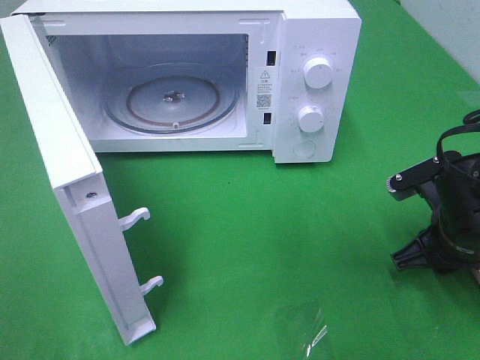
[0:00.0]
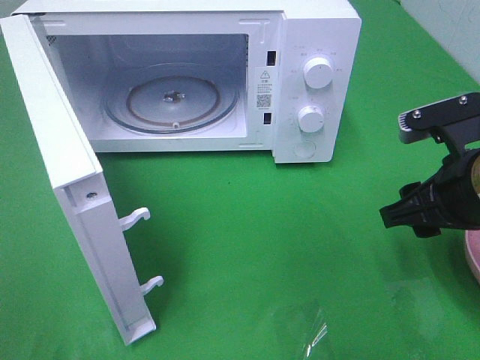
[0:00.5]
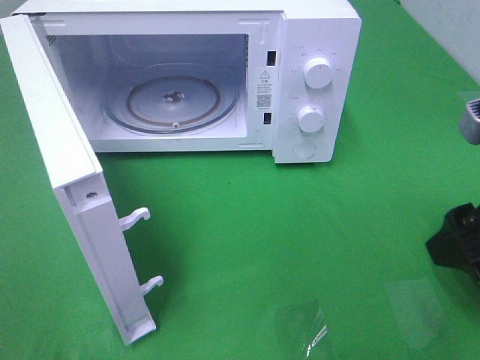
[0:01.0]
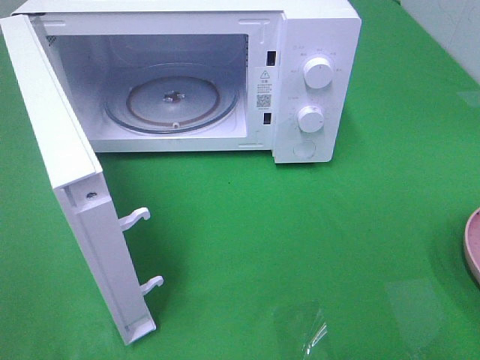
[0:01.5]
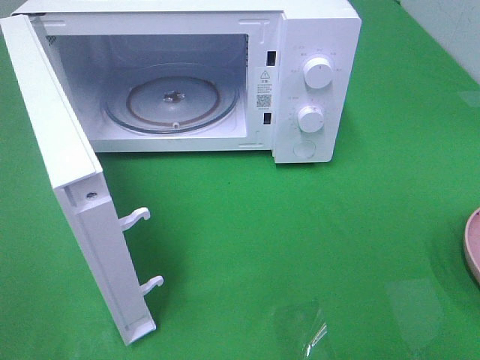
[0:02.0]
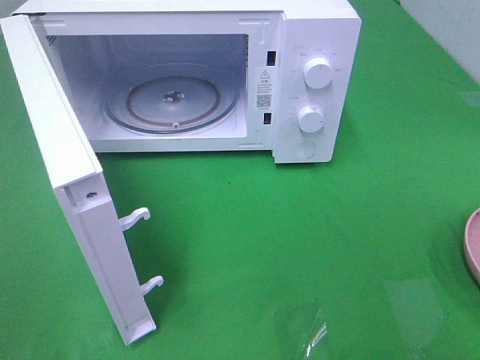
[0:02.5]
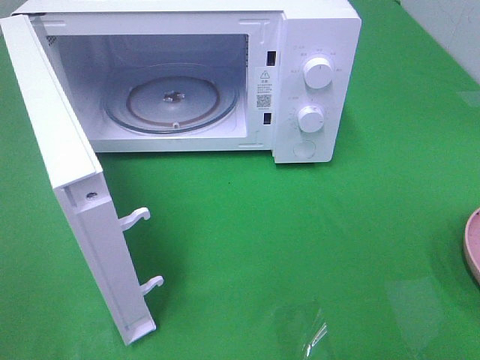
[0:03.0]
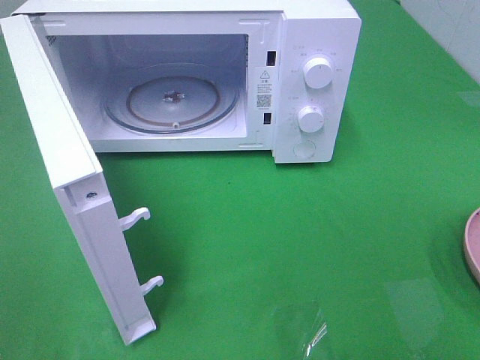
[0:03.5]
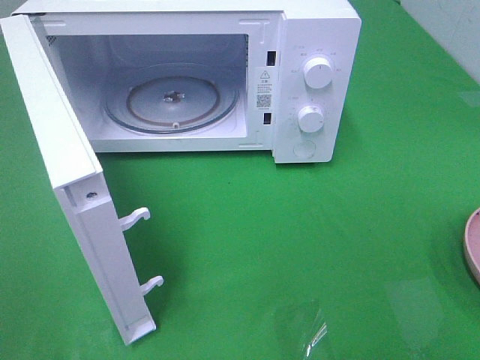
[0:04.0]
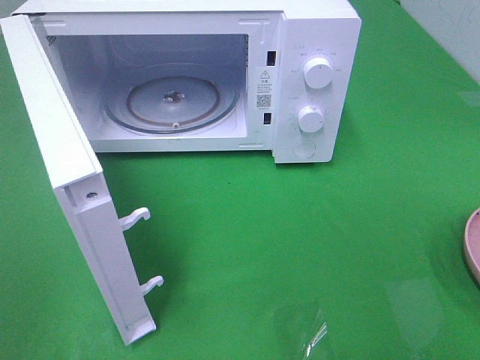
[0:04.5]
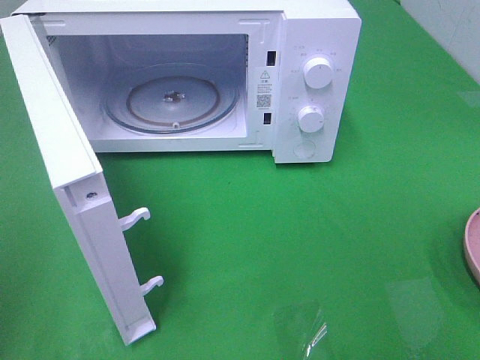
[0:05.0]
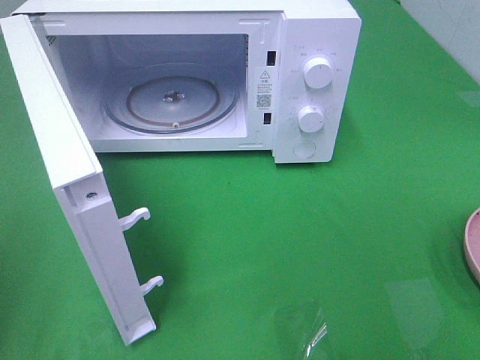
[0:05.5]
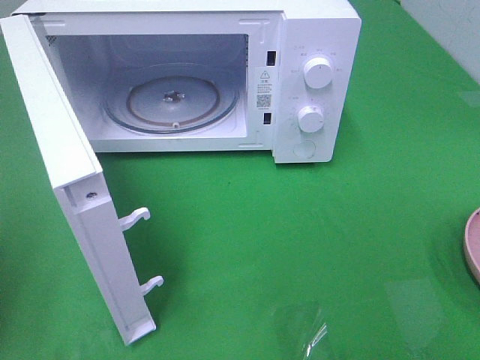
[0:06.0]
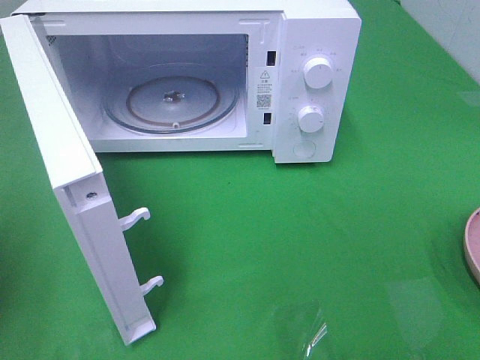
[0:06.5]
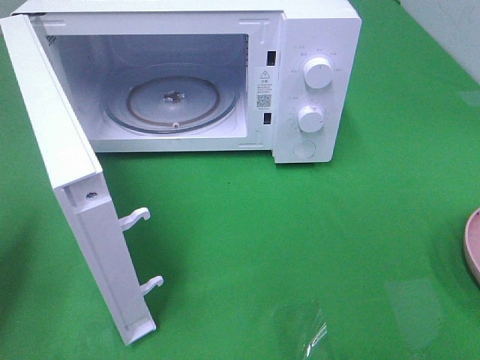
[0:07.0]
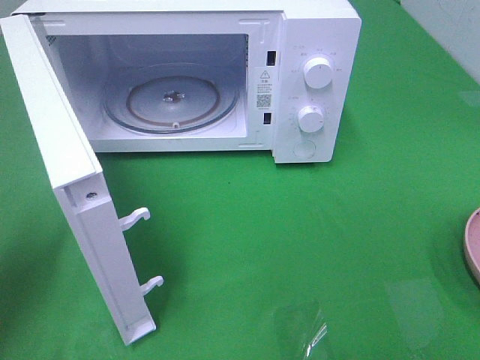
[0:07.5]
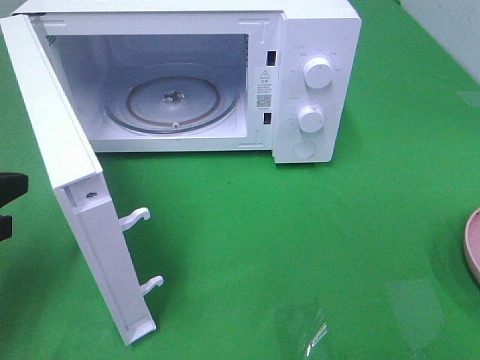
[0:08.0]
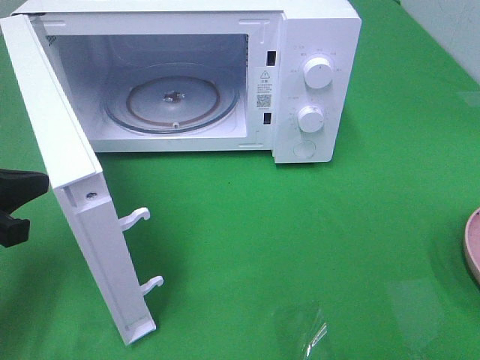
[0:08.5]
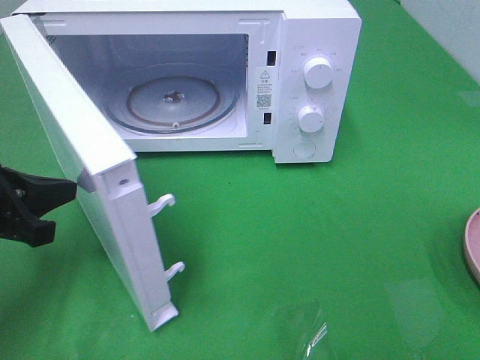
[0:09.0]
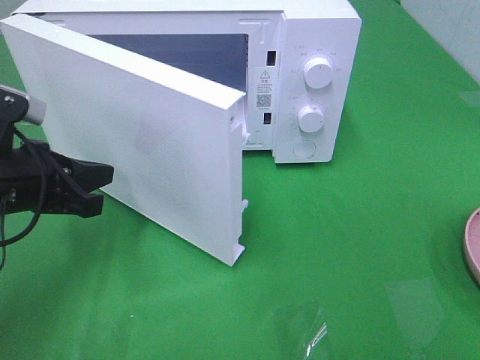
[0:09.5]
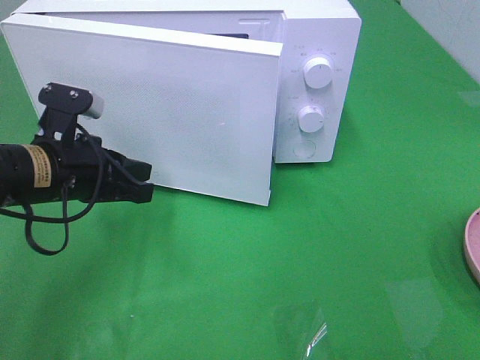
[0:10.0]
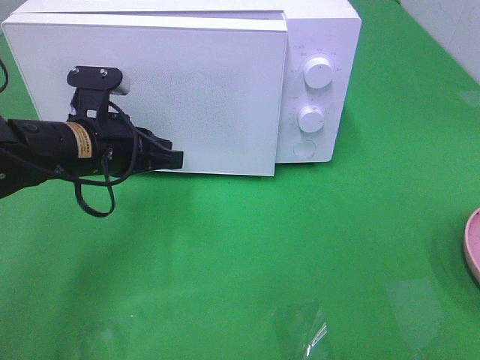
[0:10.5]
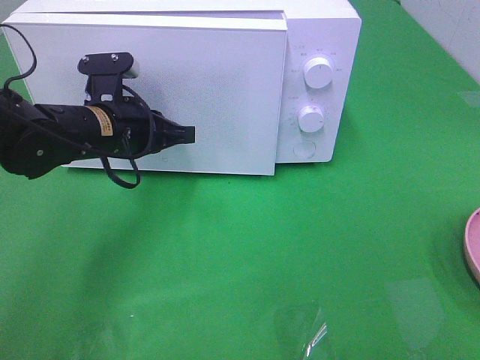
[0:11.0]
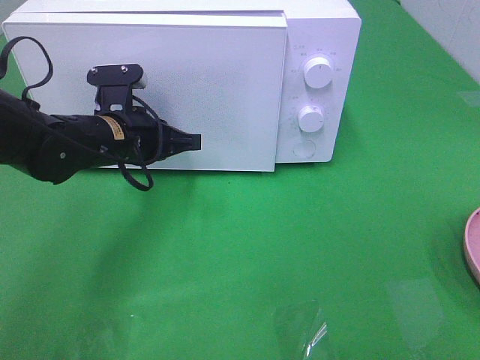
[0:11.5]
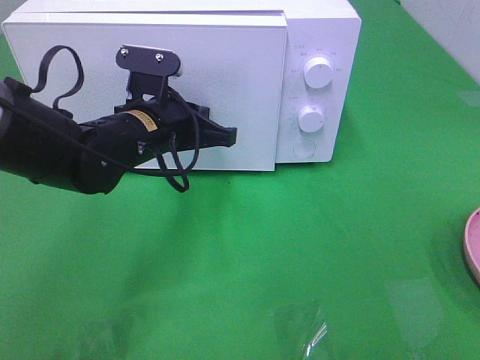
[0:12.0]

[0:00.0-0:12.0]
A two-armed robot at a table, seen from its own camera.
Task of the whole recording: Heat the burger.
0:00.0 to 0:02.0: The right gripper heads backward and upward, covering roughly 30 cm.
0:06.0 to 0:08.0: The left gripper travels downward and forward by approximately 10 cm.
0:08.0 to 0:10.0: The left gripper travels to the right and forward by roughly 15 cm.
0:10.0 to 0:12.0: The left gripper shifts approximately 10 cm to the right and forward.

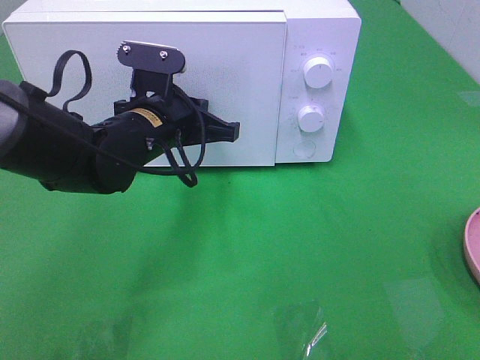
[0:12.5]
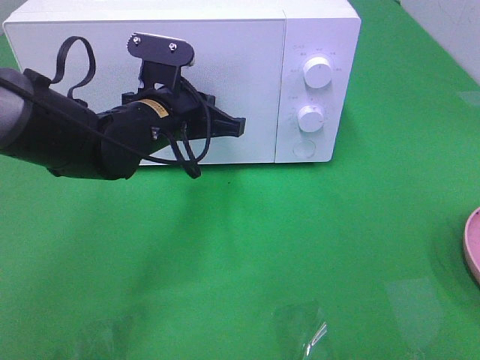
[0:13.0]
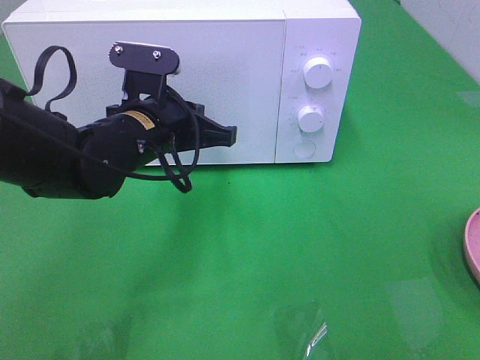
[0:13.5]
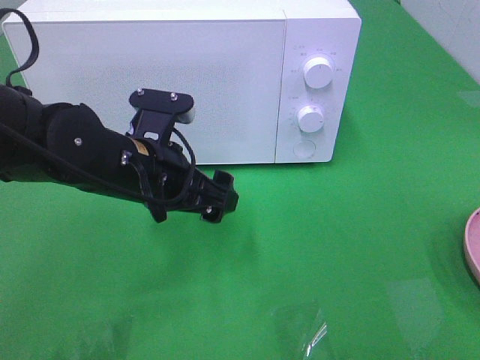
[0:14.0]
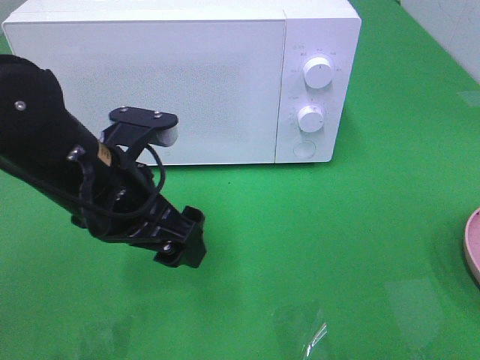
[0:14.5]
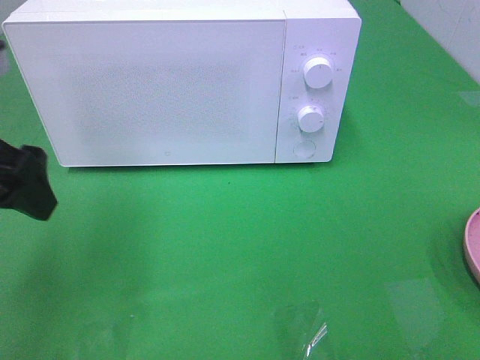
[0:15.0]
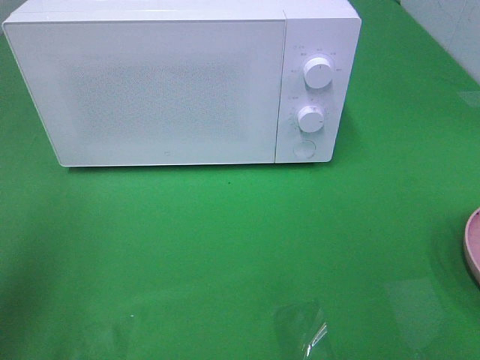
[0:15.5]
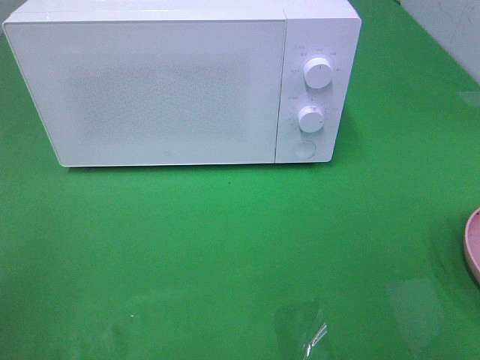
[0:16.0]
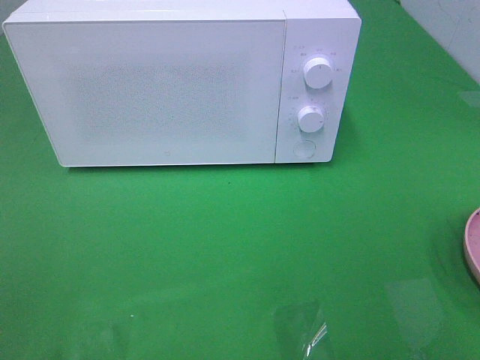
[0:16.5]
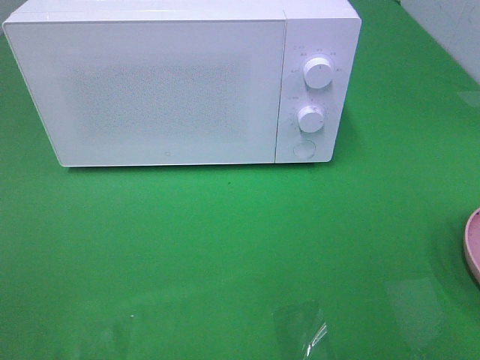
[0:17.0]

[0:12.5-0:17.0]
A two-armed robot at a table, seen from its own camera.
Task of the whole recording: Heat the burger.
0:12.5 to 0:14.5: The left gripper shifts approximately 10 cm backward, and opens.
0:14.5 to 0:17.0: The left gripper shifts roughly 30 cm backward, to the left and upward.

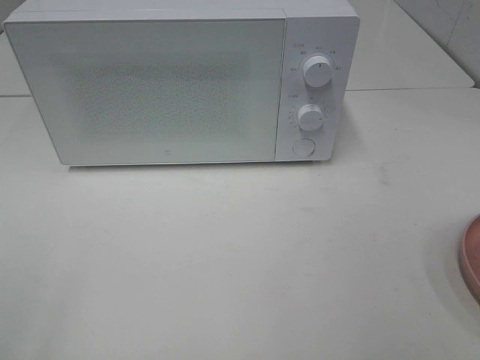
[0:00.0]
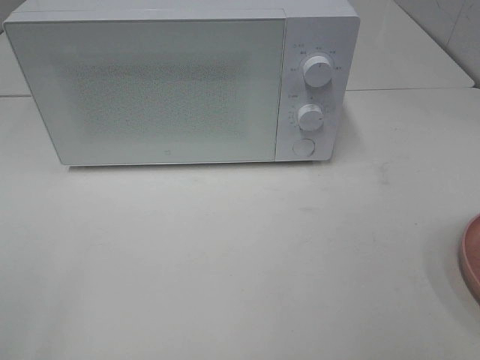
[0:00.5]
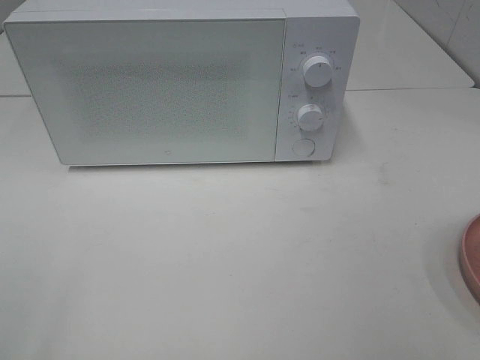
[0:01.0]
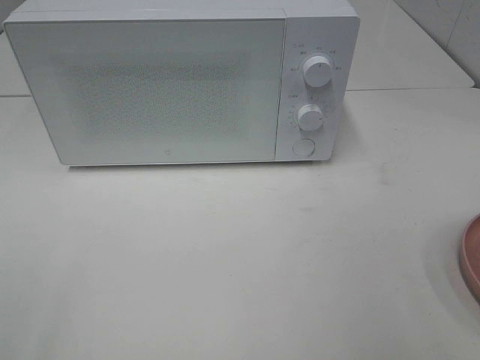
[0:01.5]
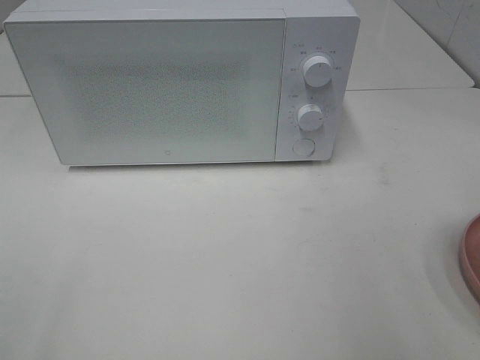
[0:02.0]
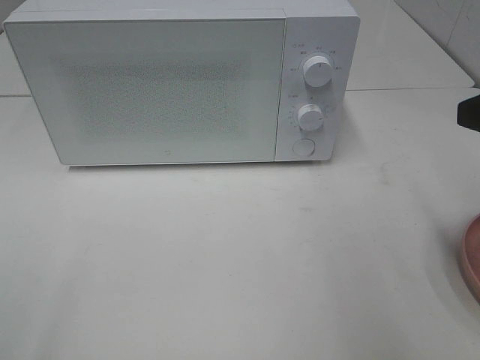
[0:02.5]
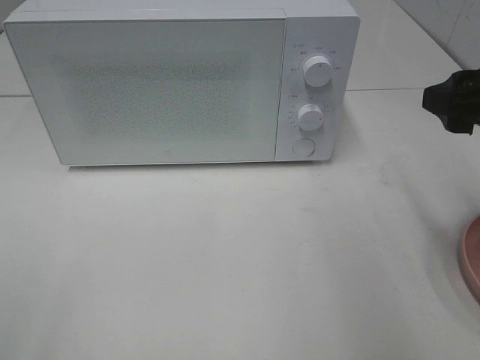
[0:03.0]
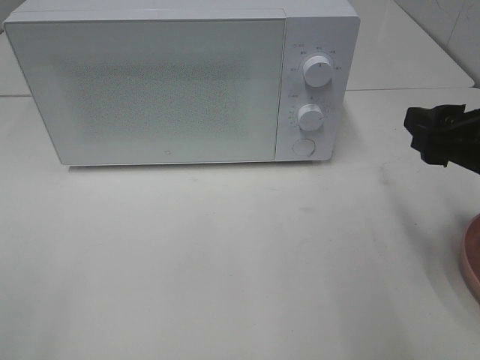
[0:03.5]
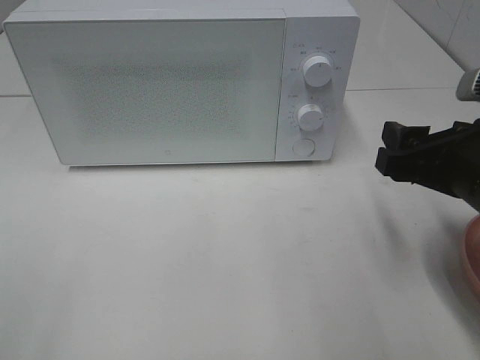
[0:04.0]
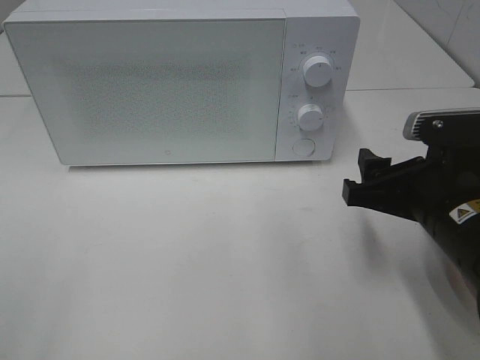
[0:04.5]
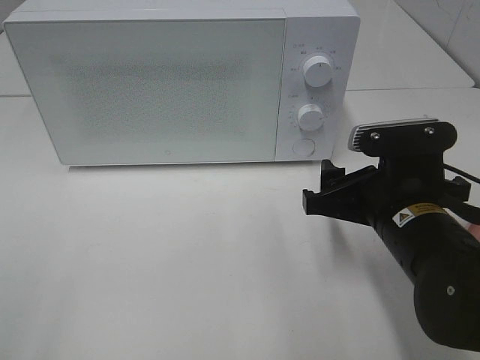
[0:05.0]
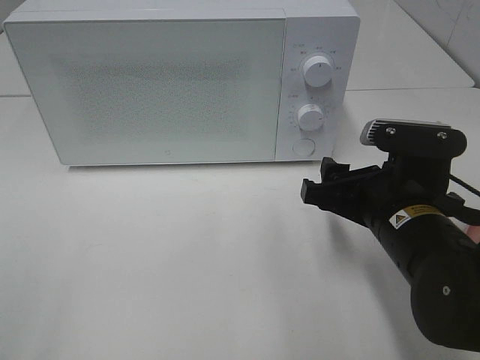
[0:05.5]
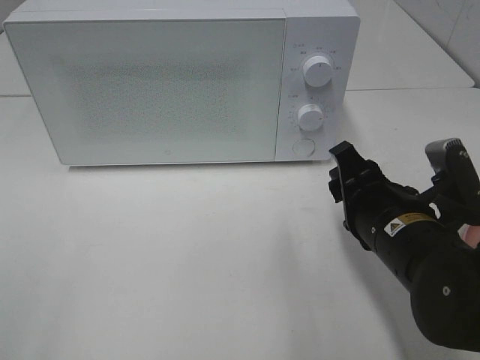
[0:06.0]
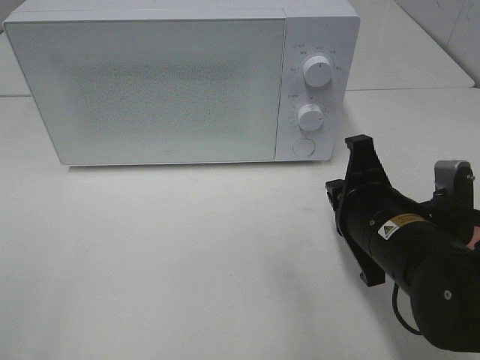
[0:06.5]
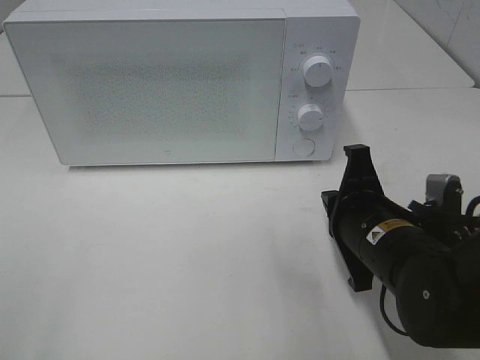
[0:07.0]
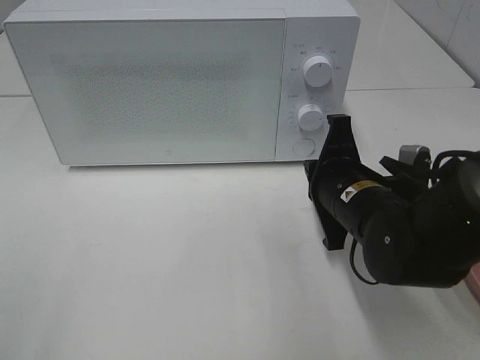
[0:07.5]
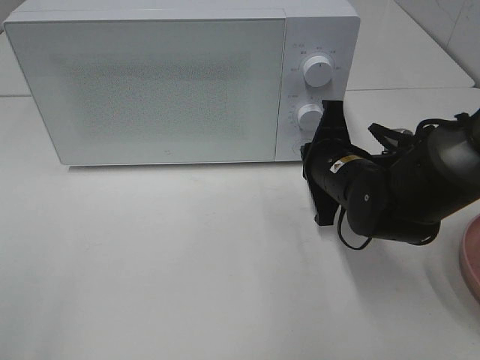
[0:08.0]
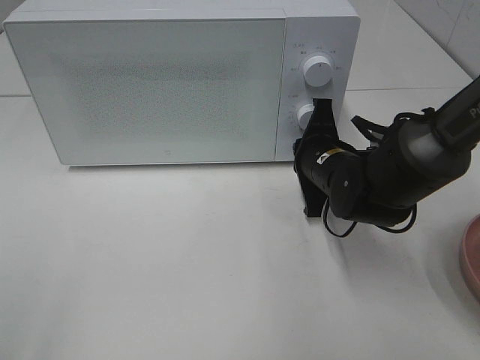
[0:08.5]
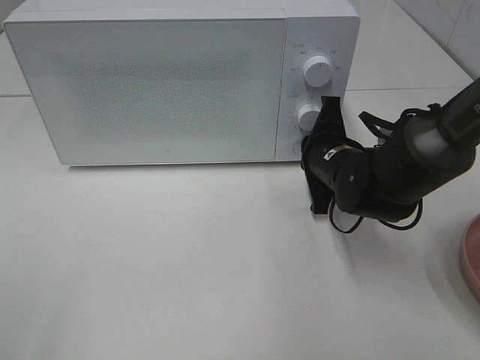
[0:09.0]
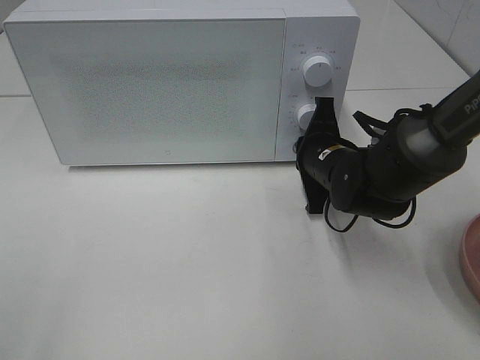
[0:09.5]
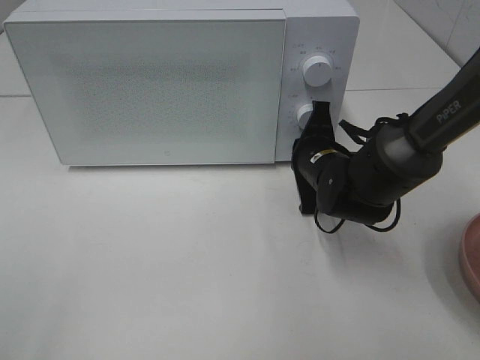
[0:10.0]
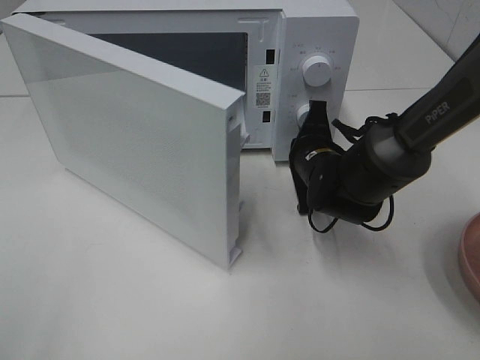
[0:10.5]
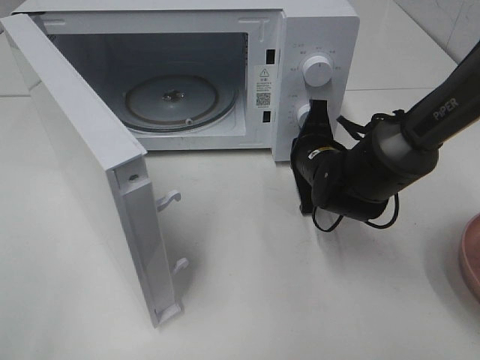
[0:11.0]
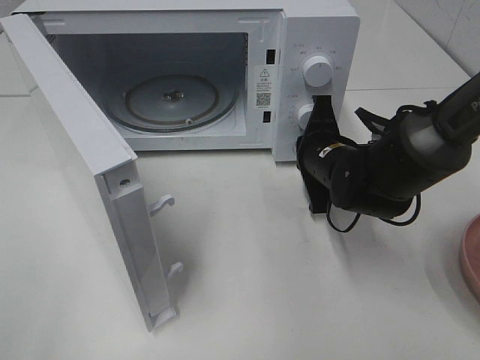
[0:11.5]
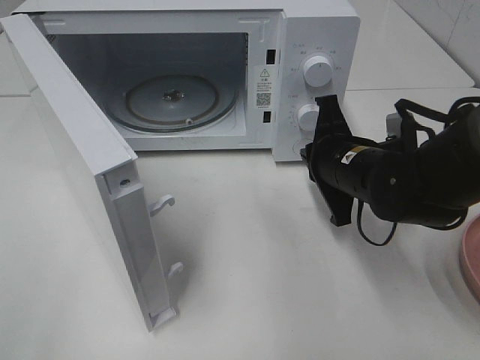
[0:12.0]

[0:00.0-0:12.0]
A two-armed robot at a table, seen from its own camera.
Task of the whole recording: Heat the burger.
Step, 0:00.0 to 0:11.5: Right hand: press the switch.
0:02.0 to 0:04.0: The right gripper shifts about 15 cm downward, forward and to the left.
0:04.0 to 0:06.0: The right gripper is displaced to the left and downward by roughly 10 cm.
0:06.0 to 0:08.0: The right gripper is displaced forward by approximately 10 cm, and closes.
0:08.0 to 0:10.0: The right gripper shifts by approximately 5 cm.
0:10.0 to 0:12.0: The right gripper heads backward, covering roughly 5 cm.
